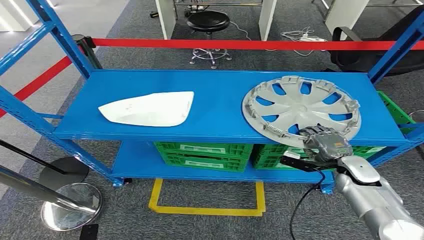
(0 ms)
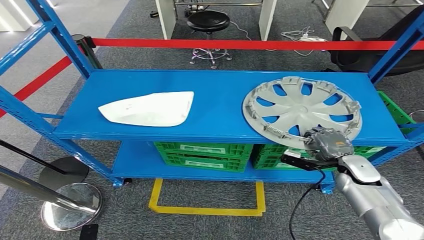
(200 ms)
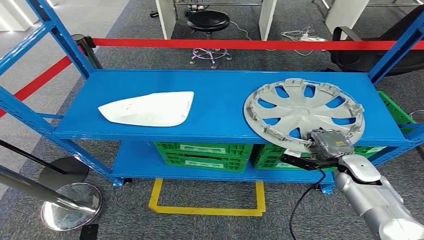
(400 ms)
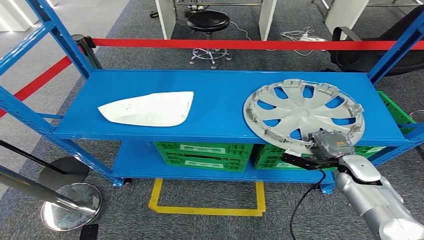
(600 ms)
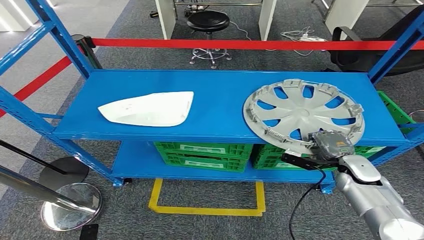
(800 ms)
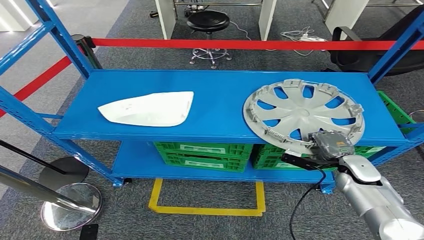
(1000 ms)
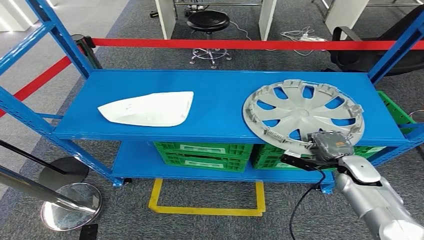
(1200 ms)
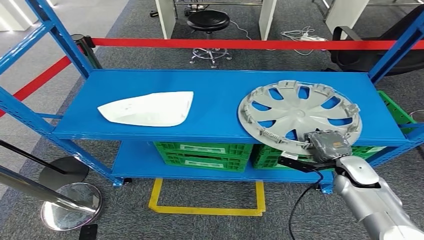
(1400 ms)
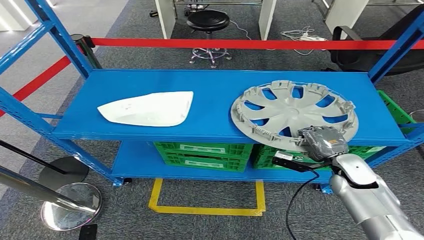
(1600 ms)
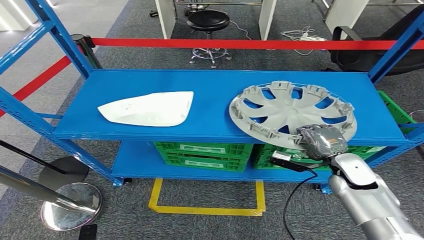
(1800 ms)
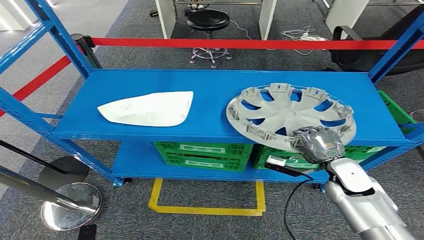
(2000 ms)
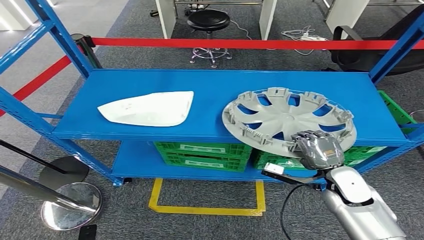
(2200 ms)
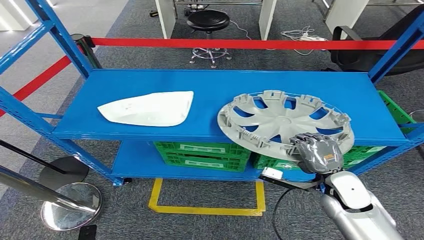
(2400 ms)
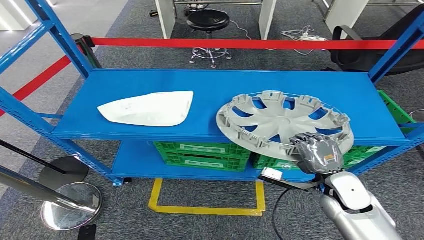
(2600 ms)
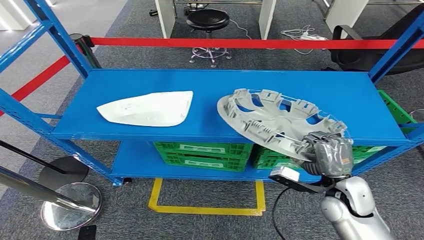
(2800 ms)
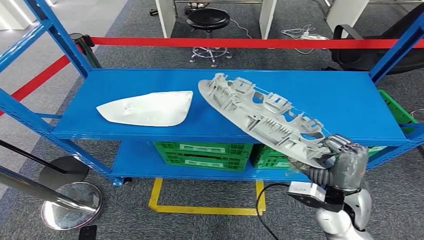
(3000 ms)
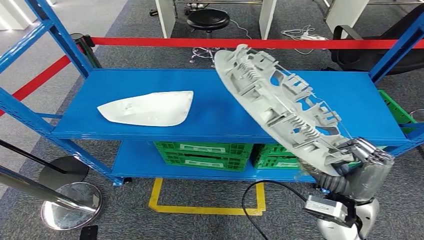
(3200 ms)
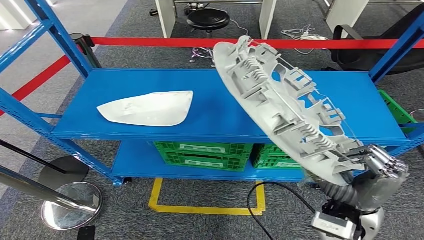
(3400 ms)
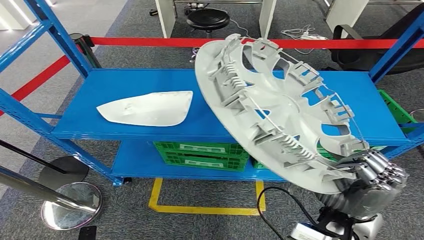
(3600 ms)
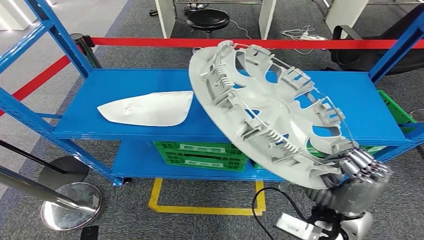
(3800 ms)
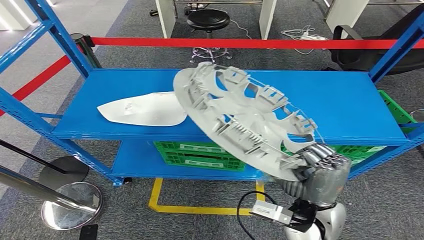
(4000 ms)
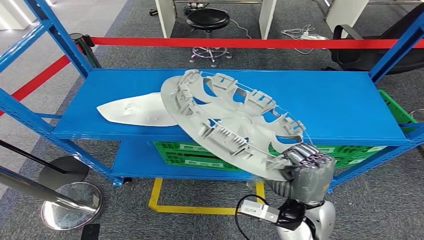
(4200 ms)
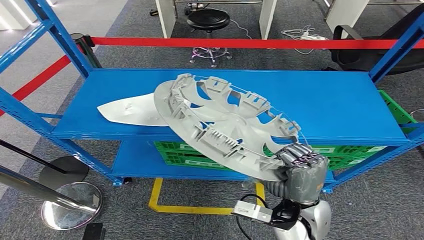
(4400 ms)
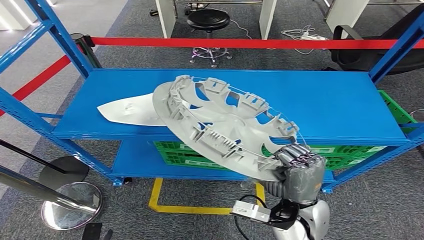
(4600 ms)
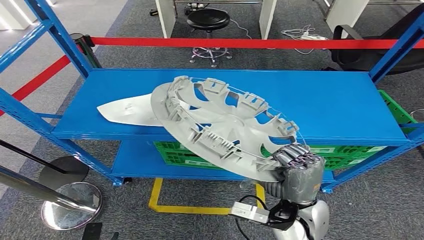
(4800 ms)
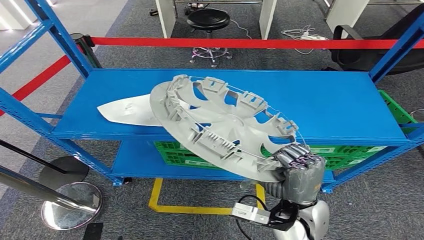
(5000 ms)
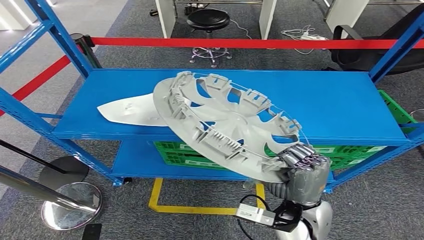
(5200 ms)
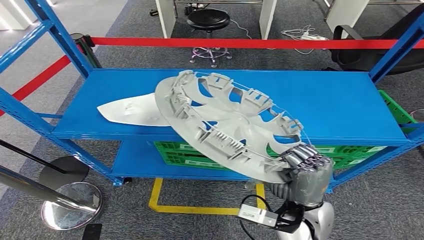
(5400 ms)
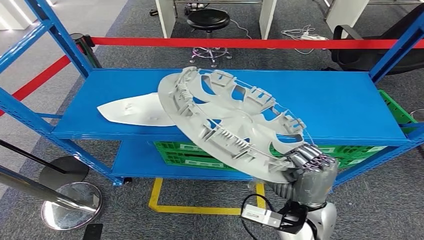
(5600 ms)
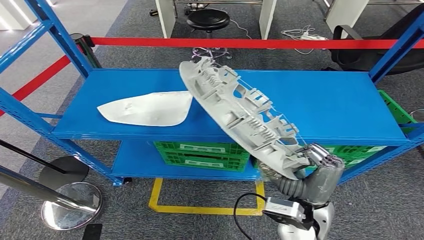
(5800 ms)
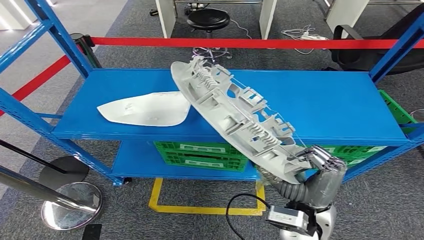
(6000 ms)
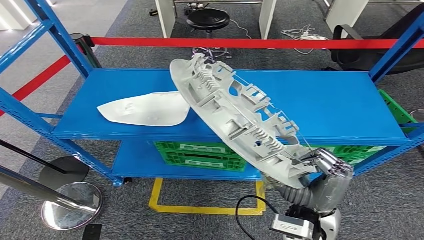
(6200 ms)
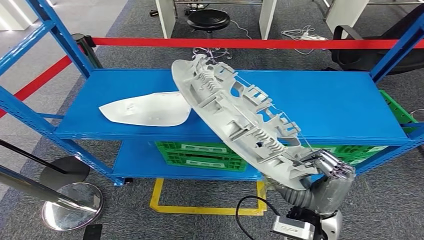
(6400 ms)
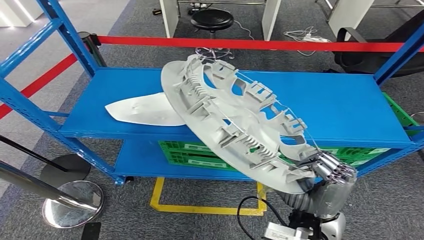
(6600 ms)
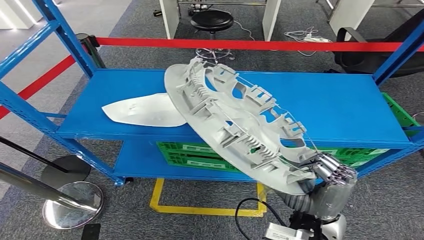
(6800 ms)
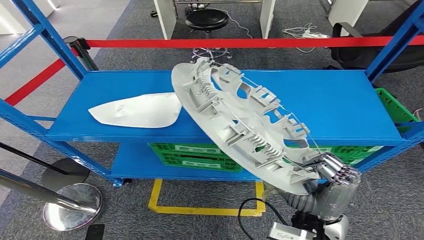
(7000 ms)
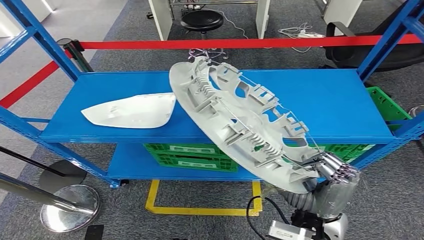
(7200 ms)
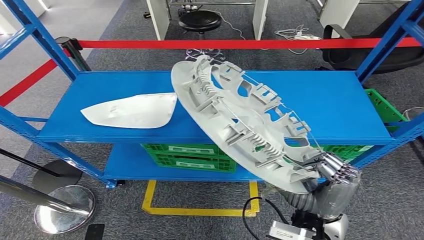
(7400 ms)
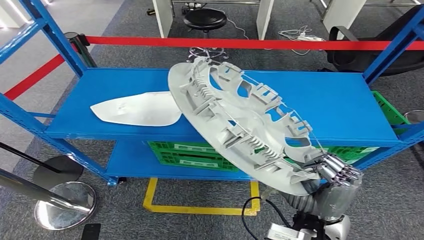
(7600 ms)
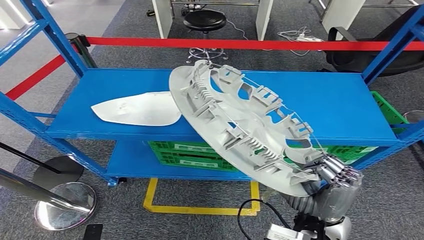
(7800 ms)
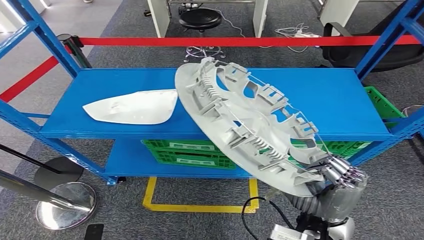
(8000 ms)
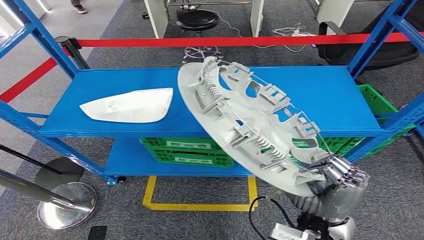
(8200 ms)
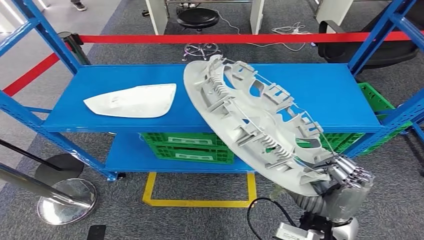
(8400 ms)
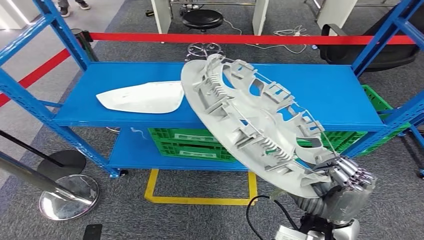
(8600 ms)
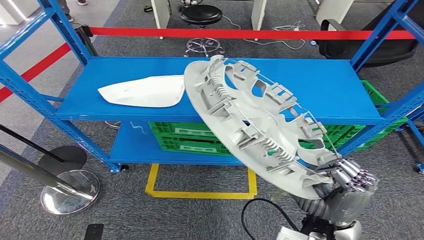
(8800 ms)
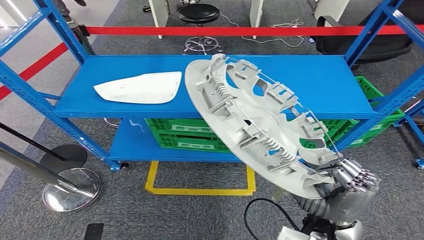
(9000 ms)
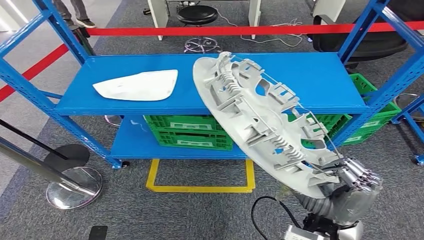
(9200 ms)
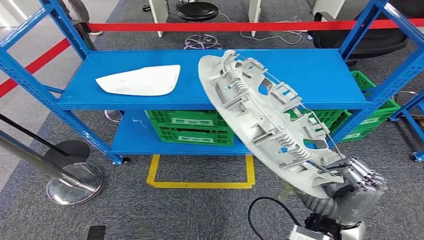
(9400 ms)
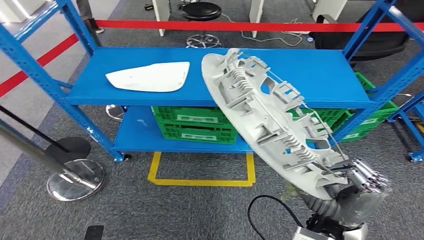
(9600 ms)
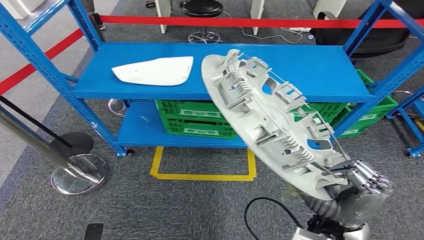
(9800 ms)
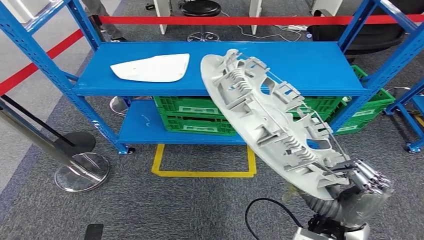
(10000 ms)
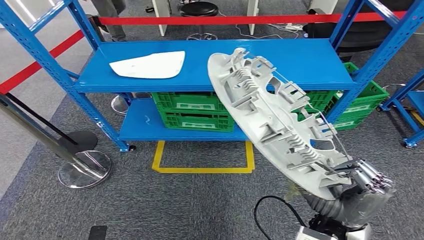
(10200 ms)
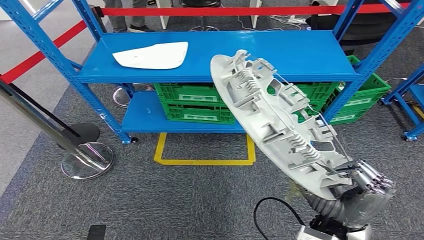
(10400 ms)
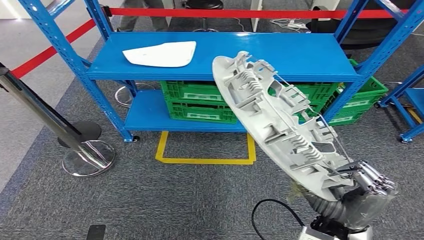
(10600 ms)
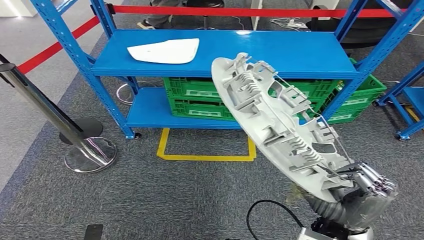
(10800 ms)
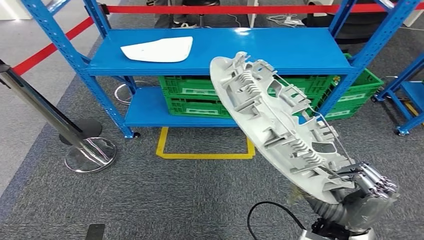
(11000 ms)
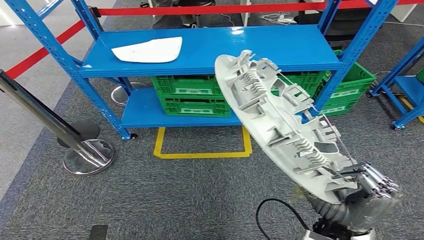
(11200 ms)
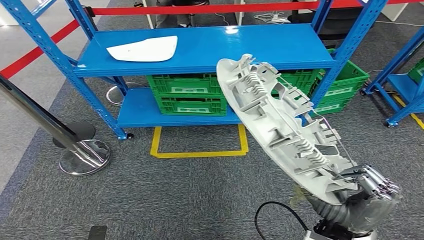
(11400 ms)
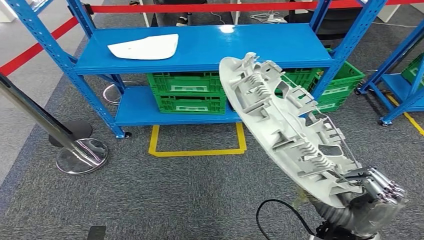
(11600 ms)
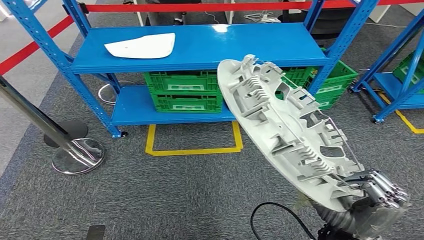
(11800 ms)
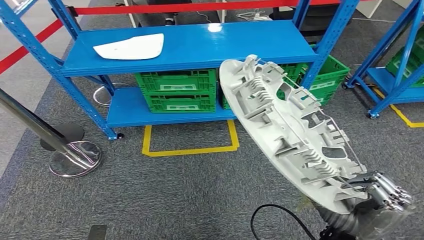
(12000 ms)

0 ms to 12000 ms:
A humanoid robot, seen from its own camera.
Step, 0 ms to 7600 ms: Pick up the small component from the shelf.
1600 ms to 3000 ms: The right hand shifts about 15 cm backward and to the left.
3000 ms to 4400 ms: The right hand is displaced to the left by approximately 10 cm.
4400 ms to 6000 ms: There are only small adjustments of the hands.

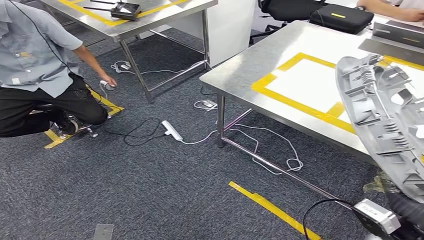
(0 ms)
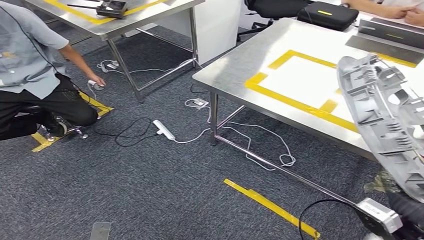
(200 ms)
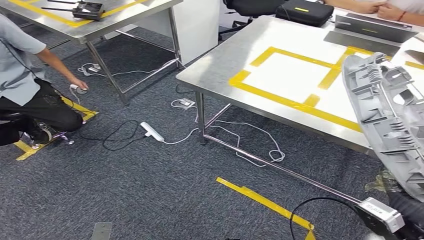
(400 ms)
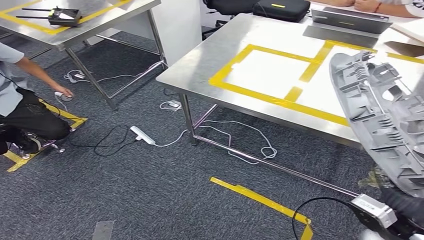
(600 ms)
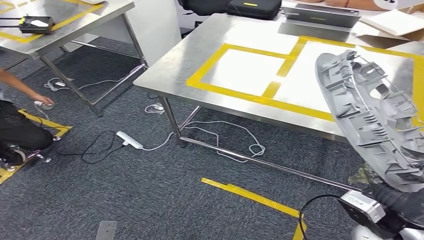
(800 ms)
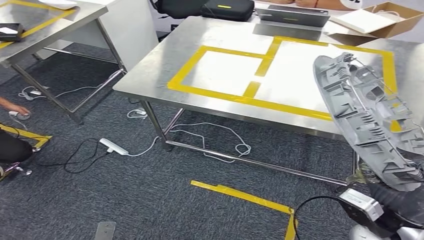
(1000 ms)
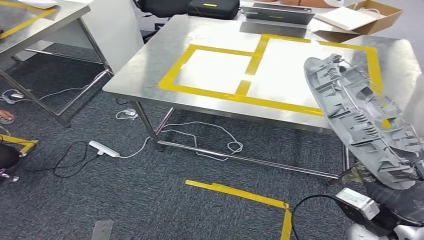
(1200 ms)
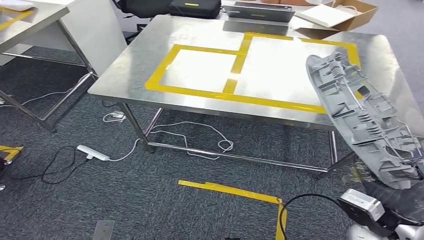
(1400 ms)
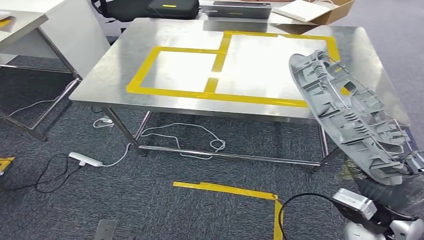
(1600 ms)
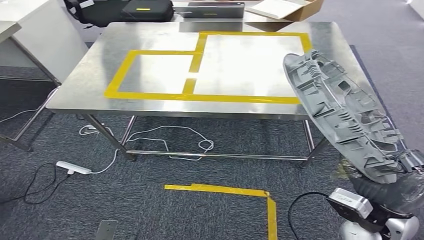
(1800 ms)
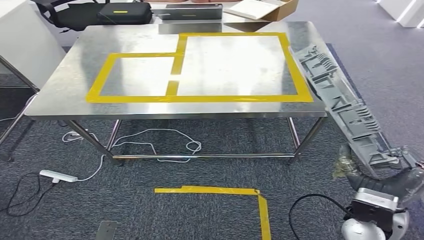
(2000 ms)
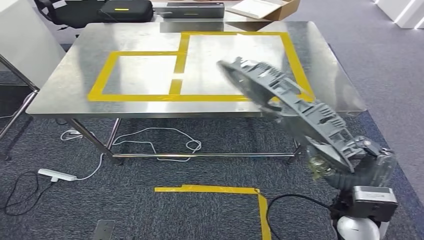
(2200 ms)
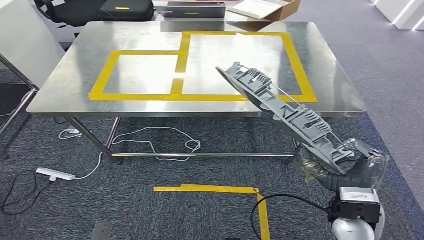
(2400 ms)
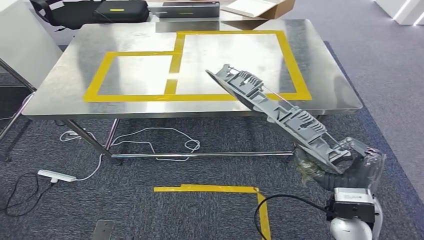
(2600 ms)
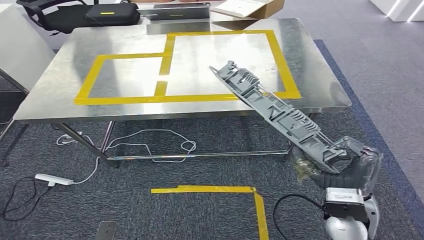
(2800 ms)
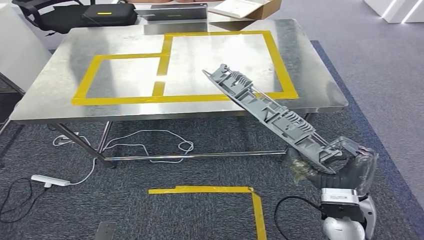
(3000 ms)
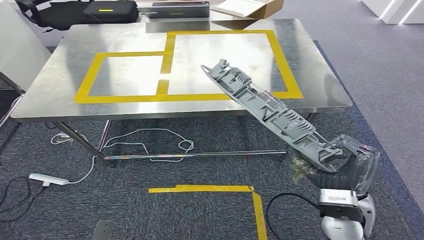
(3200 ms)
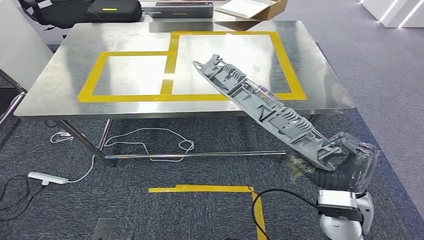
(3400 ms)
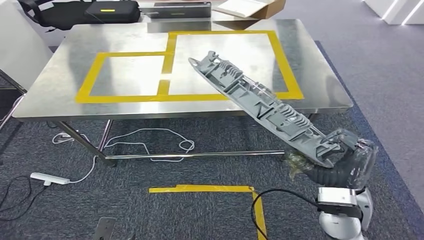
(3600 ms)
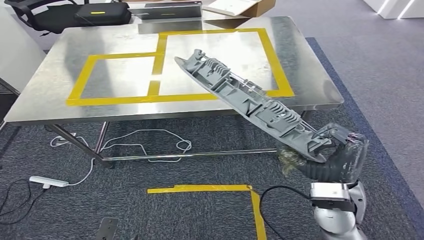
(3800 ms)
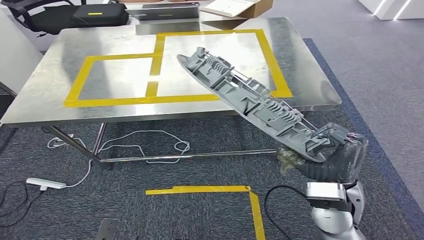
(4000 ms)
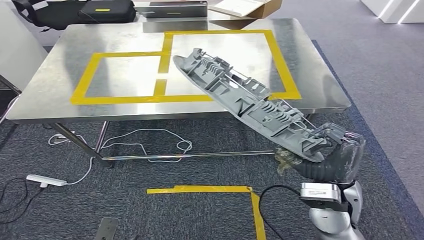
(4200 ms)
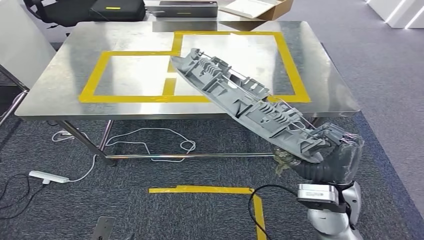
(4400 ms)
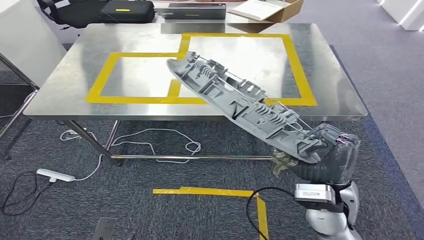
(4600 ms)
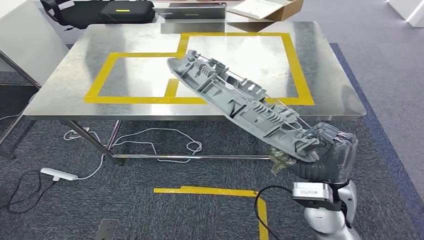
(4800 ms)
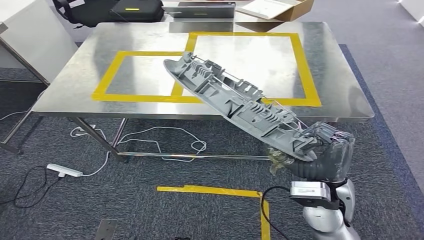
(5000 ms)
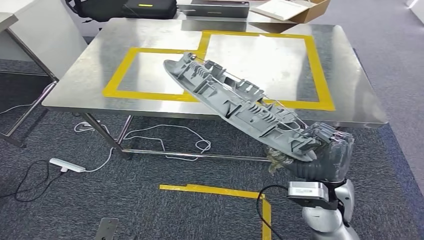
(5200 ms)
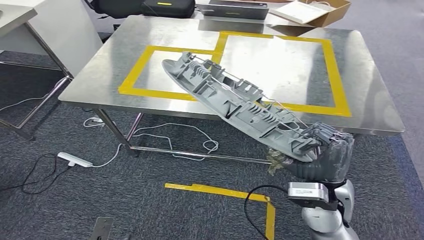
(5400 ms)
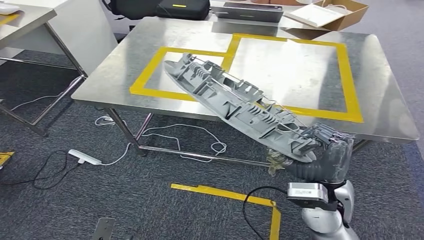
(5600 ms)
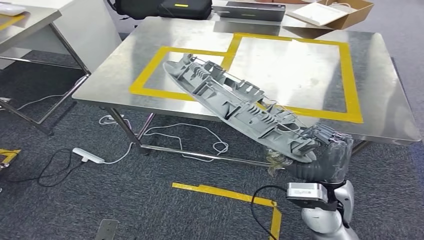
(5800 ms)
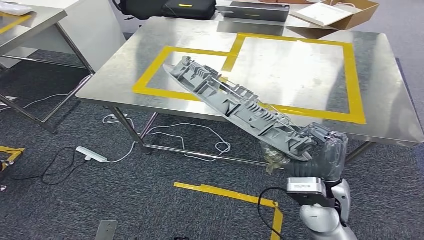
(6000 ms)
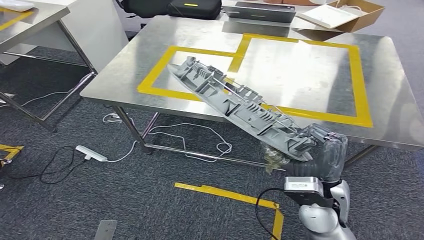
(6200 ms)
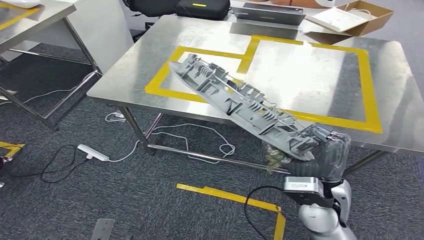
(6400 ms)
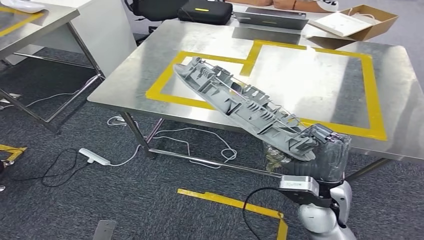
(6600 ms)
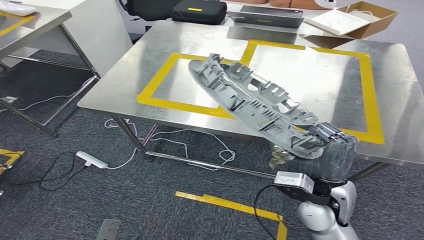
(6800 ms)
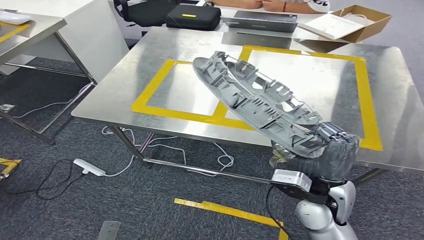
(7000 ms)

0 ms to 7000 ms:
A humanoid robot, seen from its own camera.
Step, 0 ms to 4200 ms: Move the small component to the workbench.
